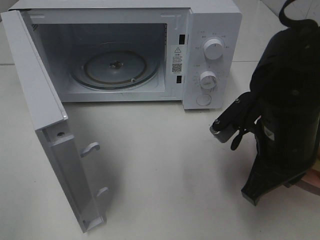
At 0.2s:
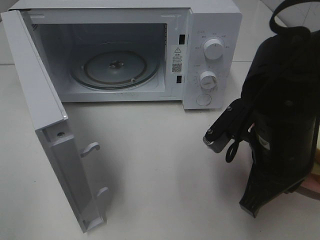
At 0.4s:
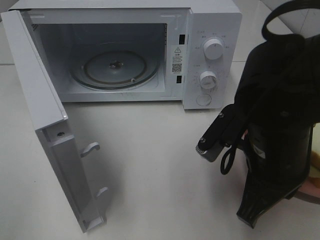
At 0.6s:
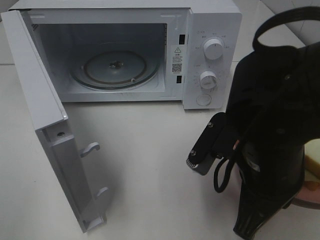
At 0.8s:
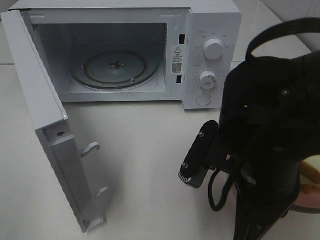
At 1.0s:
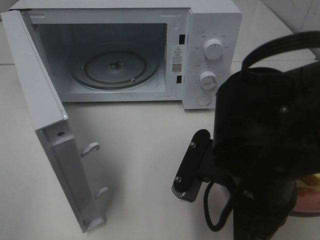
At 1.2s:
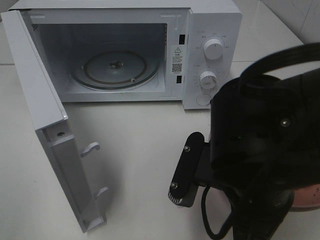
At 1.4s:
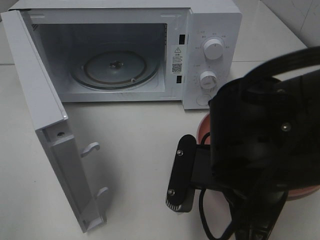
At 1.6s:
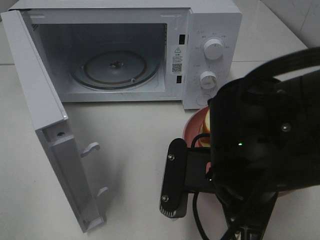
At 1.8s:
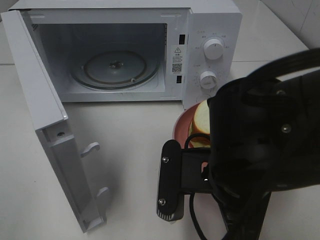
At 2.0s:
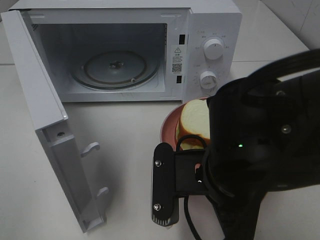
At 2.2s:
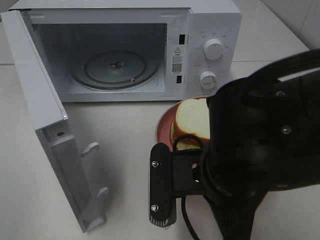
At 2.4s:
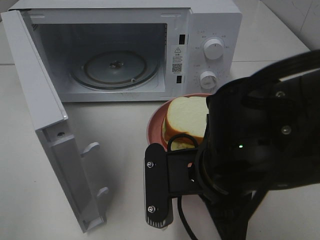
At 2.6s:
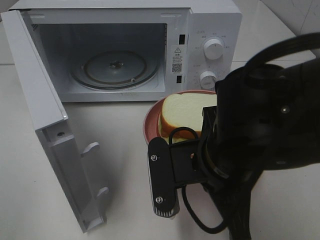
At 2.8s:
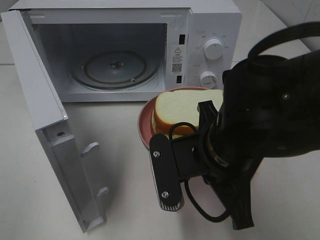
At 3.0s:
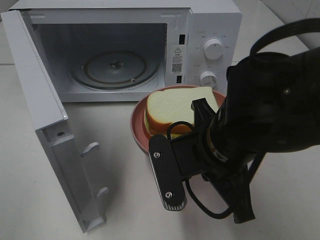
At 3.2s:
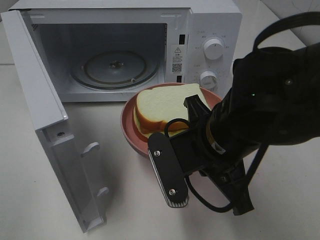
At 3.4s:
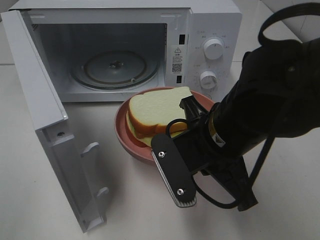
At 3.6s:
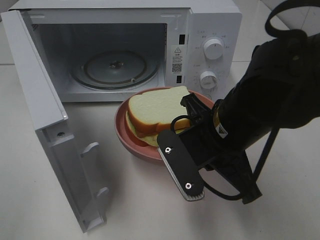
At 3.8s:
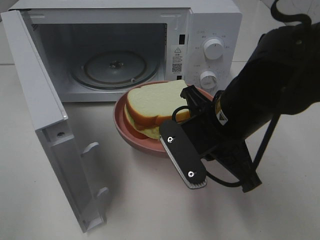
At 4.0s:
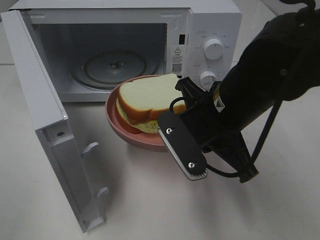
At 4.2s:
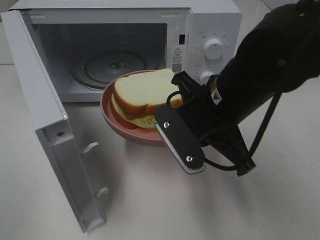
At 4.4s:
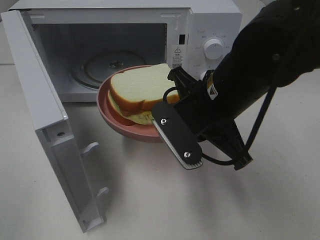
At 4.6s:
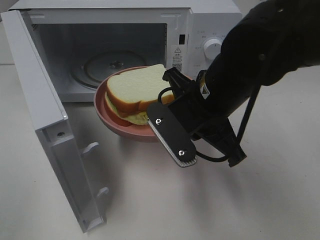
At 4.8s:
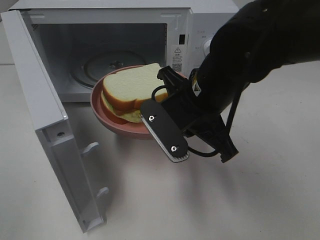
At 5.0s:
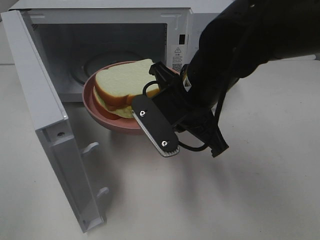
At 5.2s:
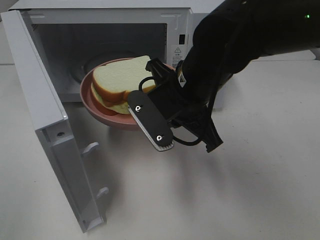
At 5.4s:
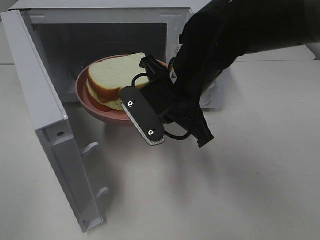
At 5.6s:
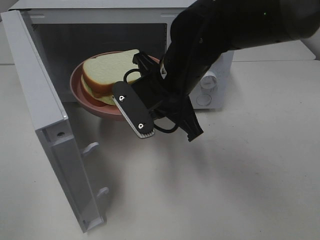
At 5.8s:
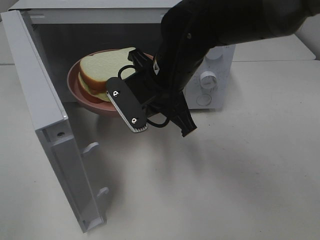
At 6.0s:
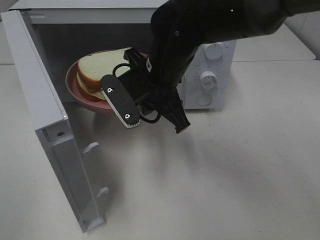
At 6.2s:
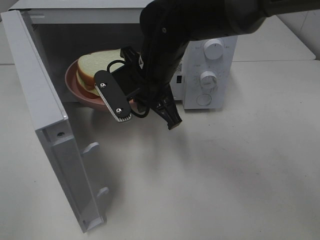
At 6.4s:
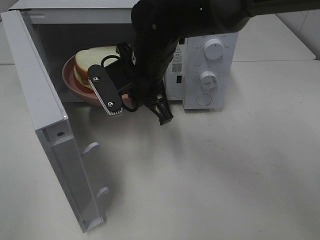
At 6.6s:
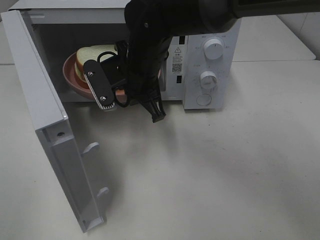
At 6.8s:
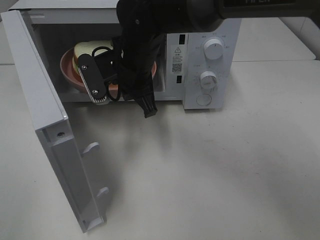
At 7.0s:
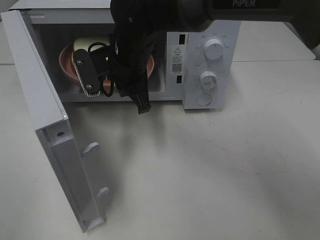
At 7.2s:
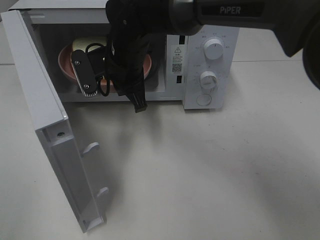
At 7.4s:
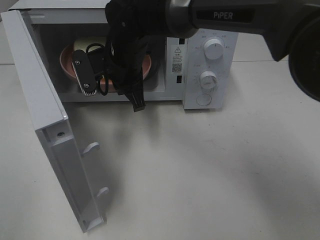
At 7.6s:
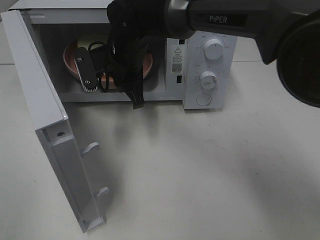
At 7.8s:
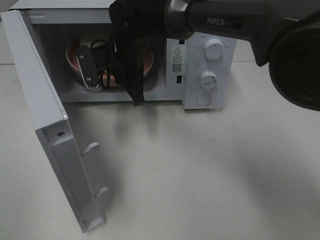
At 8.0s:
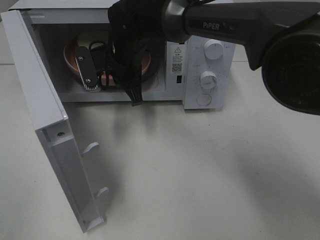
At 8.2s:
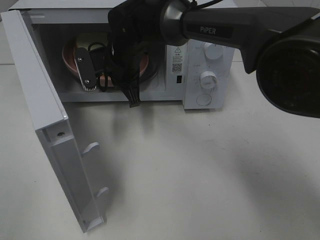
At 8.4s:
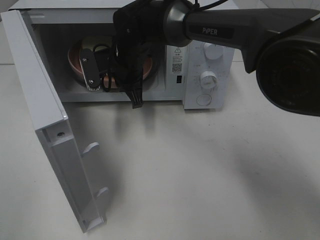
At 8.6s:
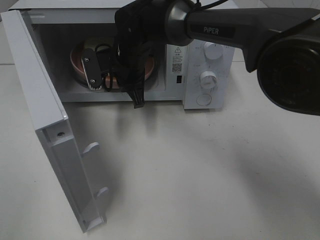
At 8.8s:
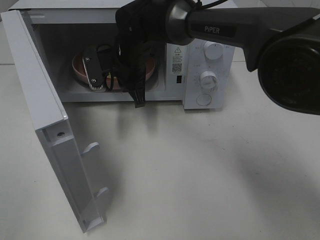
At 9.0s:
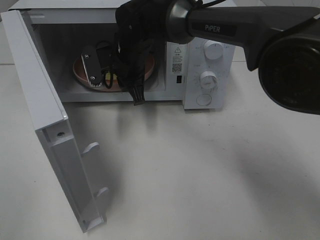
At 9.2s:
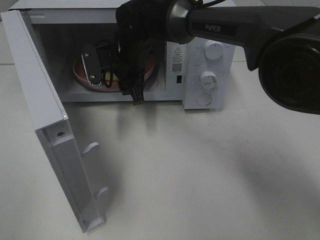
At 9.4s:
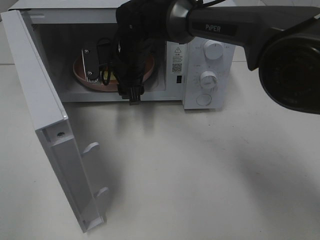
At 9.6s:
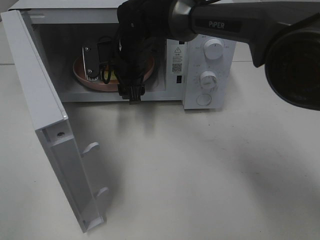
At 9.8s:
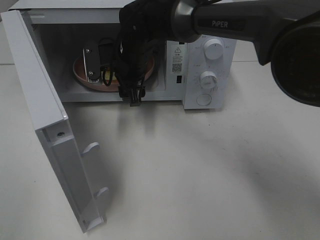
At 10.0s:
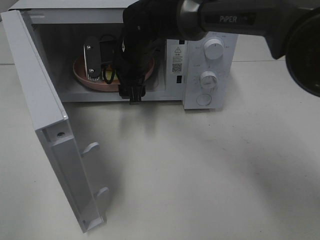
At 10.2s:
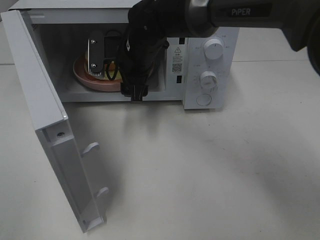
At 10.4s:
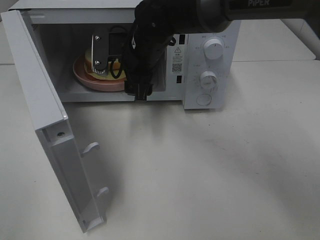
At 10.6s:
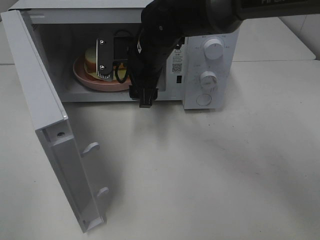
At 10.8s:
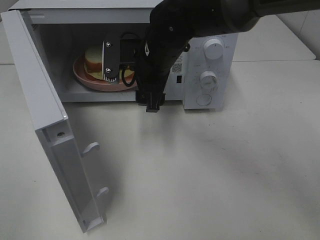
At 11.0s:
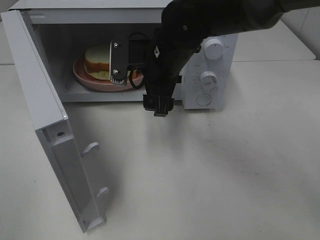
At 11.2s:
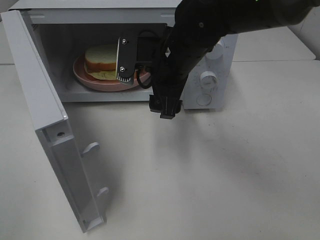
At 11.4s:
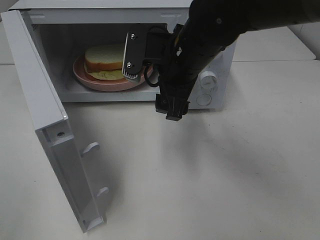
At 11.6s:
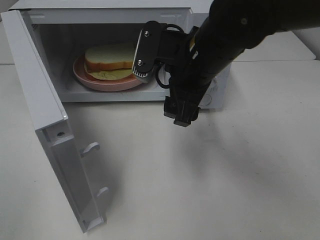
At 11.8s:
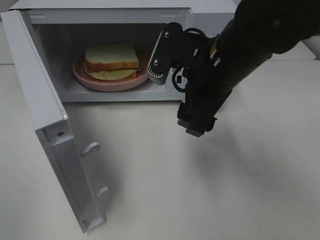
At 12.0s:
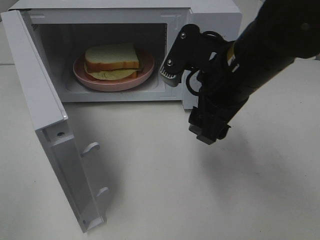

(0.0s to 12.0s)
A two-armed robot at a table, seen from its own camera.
Task of the whole recording: Heat Sandwich.
Step, 0.0s - 10.0s: Right hand: place the plate in the microwave.
0.0s - 1.6s: The right gripper heads to the left and backward, covering some 10 cm.
3.0s - 4.4s: The right gripper goes approximately 5 cm forward.
4.4s - 6.0s: The right gripper moves forward and to the left, about 10 cm.
6.0s - 7.6s: The right gripper is displaced forward and to the left by some 10 cm.
7.6s - 9.0s: The grippers make only small movements.
9.0s - 10.4s: The right gripper opens up.
10.4s - 12.0s: The right gripper is displaced backward and to the right by about 20 cm.

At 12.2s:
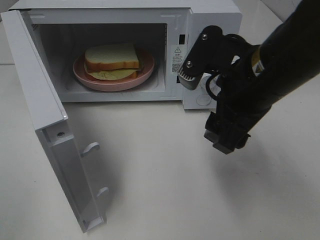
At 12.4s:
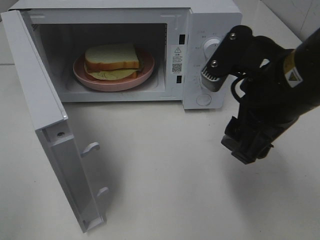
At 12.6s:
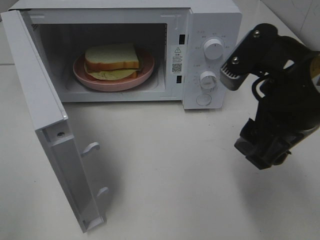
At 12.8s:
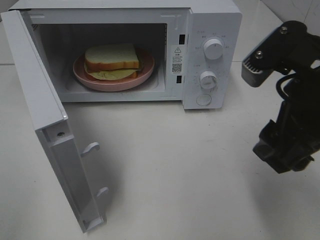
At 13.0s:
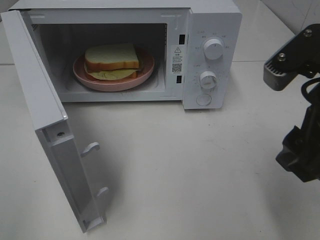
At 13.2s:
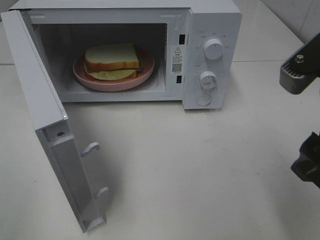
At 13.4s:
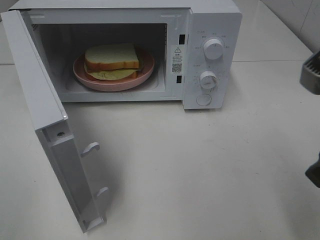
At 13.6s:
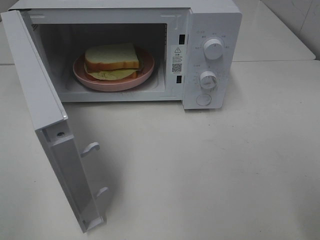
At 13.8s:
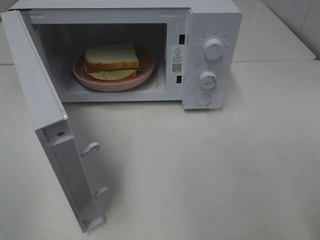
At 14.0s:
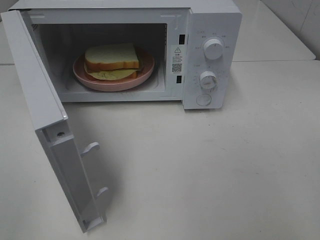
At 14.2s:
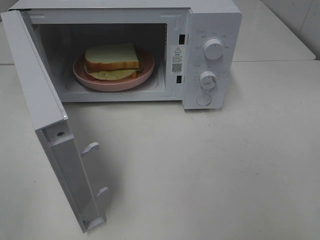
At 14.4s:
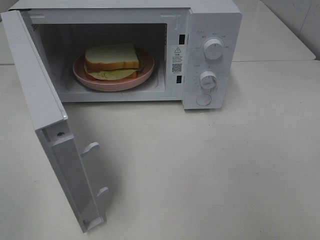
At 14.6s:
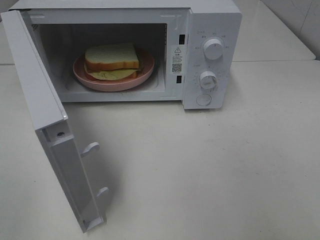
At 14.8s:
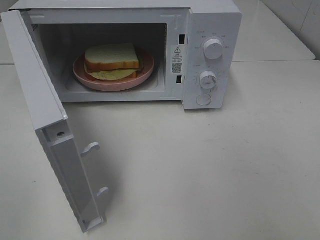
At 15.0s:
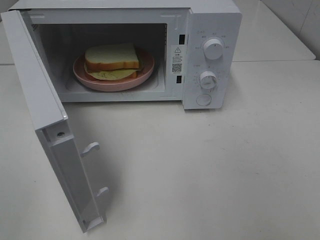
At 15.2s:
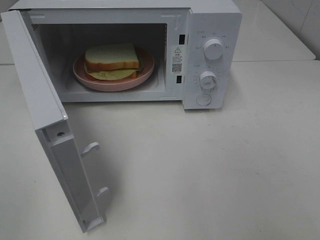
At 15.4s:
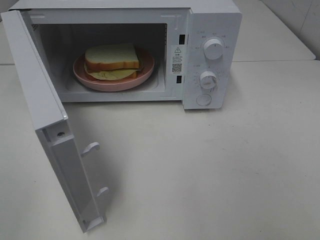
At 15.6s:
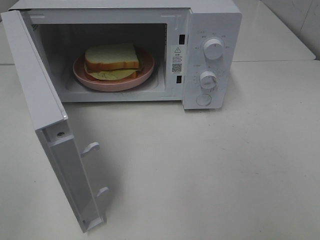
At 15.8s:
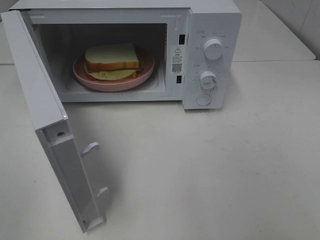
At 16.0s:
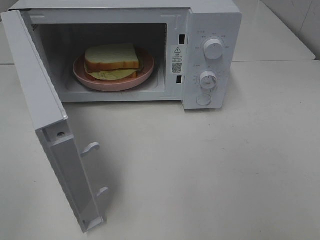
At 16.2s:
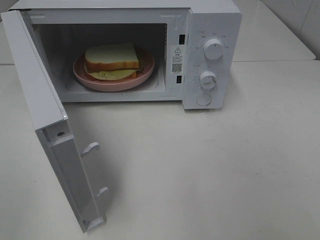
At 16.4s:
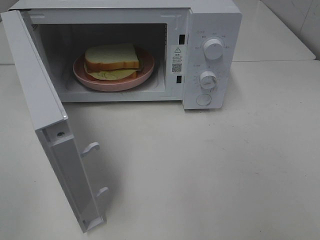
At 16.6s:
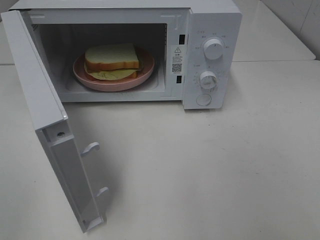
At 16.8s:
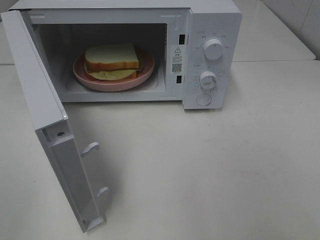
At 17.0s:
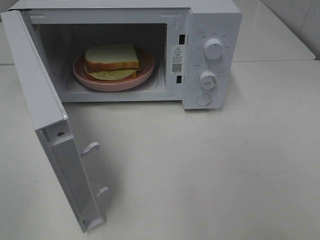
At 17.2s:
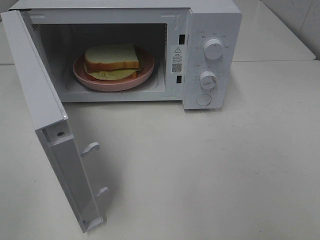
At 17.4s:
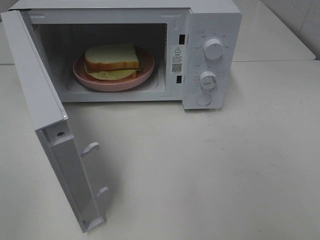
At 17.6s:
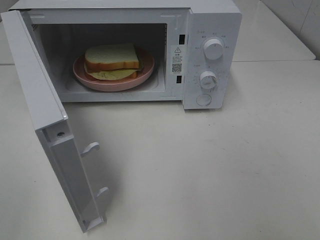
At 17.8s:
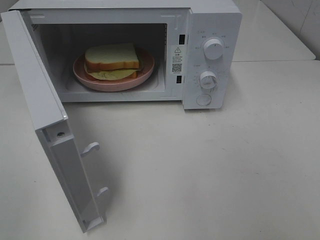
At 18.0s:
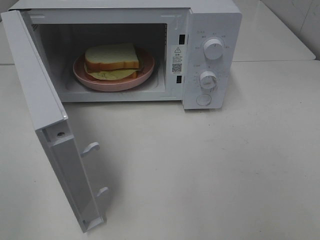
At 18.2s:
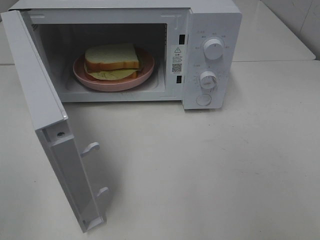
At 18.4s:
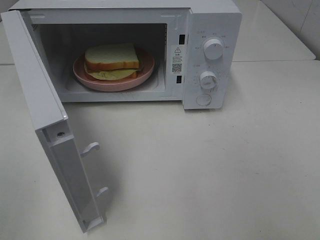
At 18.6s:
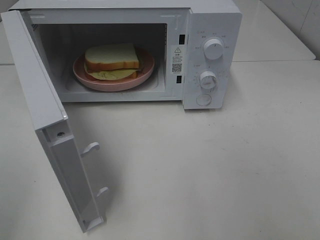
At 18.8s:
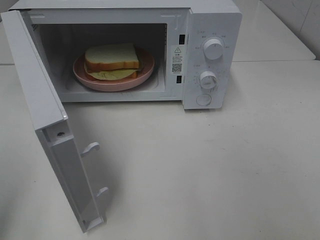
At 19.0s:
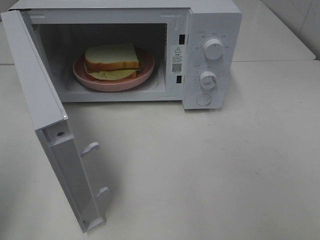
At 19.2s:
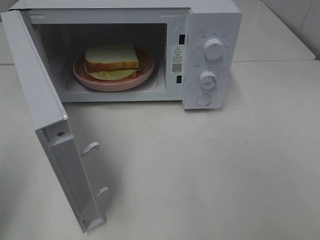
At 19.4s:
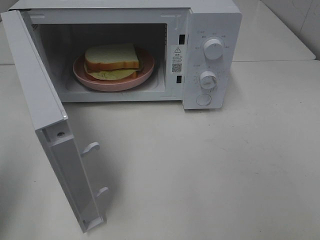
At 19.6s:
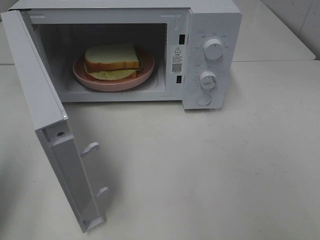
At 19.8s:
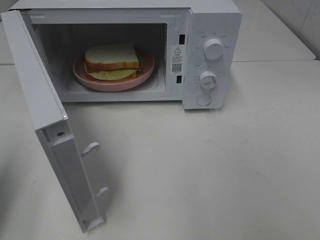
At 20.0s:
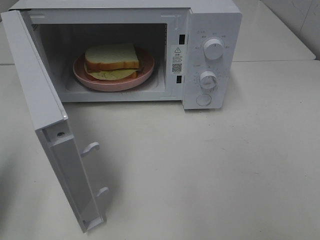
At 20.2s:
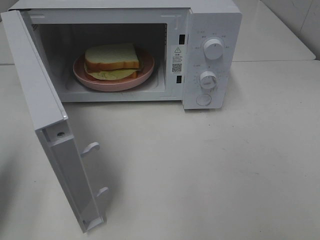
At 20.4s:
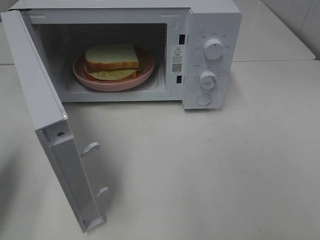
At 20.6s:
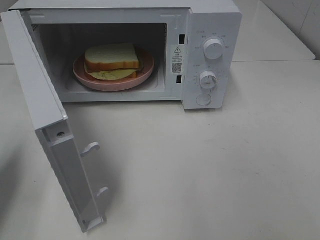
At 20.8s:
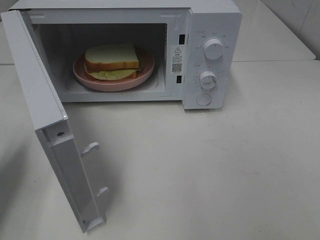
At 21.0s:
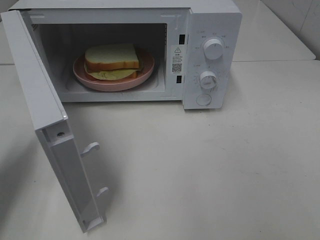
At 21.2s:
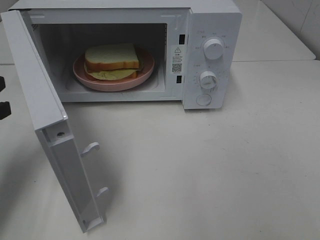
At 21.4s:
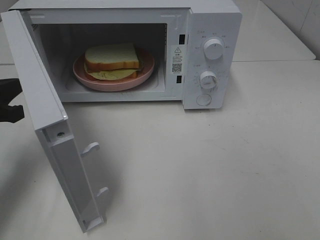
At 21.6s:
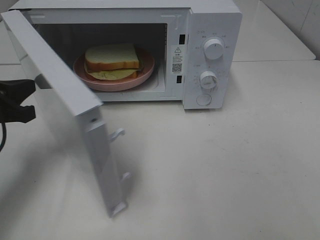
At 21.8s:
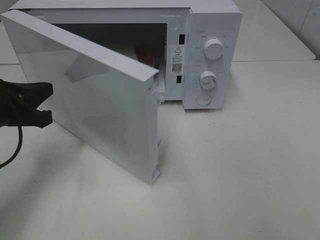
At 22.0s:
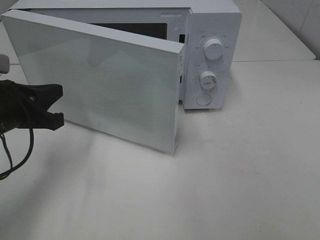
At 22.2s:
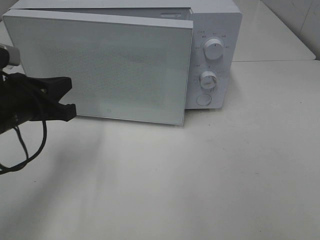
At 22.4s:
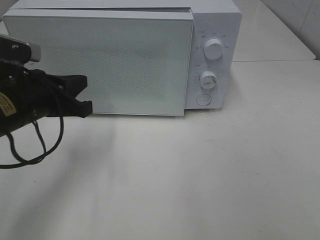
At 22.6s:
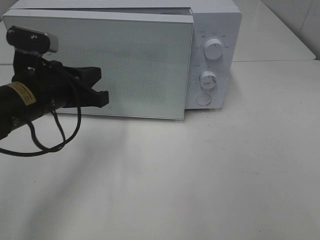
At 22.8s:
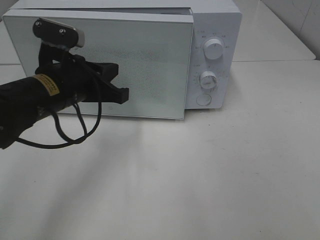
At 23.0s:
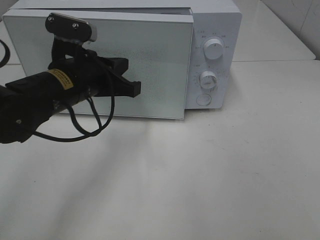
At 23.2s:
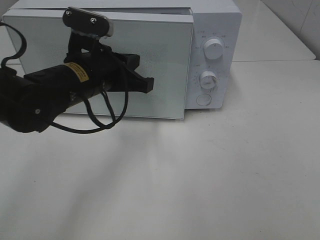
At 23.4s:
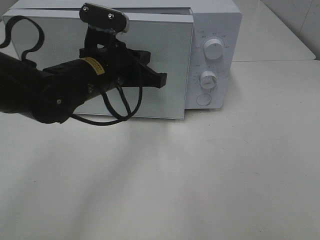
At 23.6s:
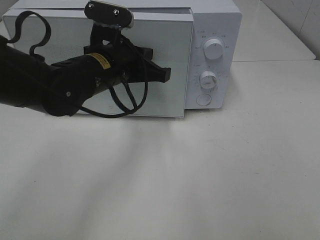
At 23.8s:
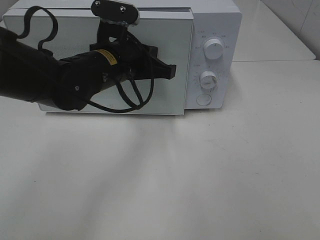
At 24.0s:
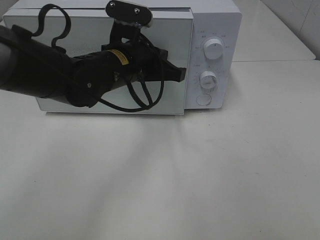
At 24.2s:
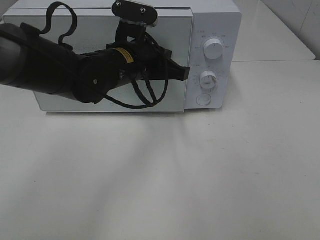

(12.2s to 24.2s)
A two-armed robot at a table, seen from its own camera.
Task of the whole recording: Heat Sandwich.
12.2s - 13.8s: The right gripper heads backward, to the right and upward, covering approximately 20 cm.
15.2s - 16.6s: Both grippers stay put.
18.2s - 19.8s: The left gripper shifts some 15 cm forward, and closes its fingers.
19.8s - 21.2s: The left gripper shifts about 10 cm forward and downward.
21.2s - 22.6s: The left gripper heads to the right, covering about 15 cm.
22.6s - 24.2s: The left gripper moves to the right and forward, some 15 cm.
